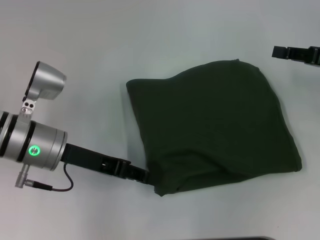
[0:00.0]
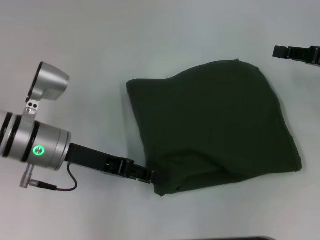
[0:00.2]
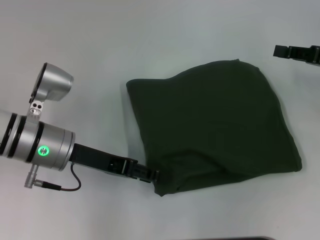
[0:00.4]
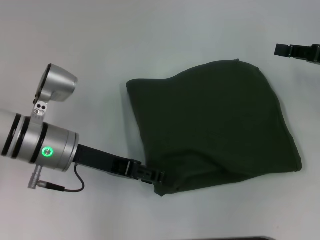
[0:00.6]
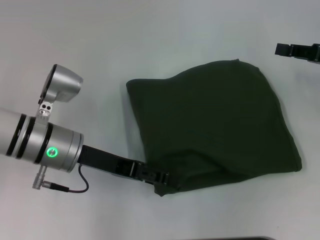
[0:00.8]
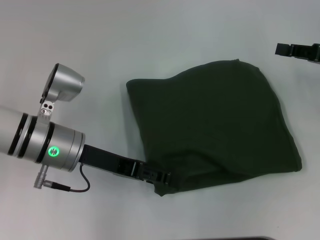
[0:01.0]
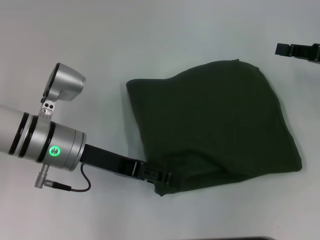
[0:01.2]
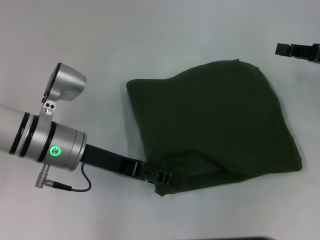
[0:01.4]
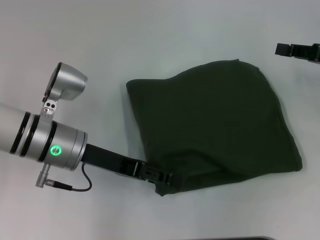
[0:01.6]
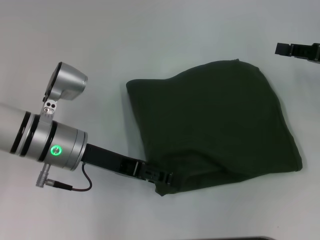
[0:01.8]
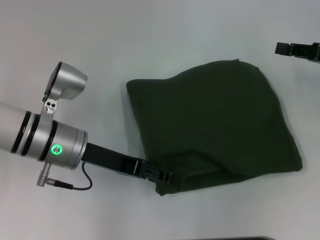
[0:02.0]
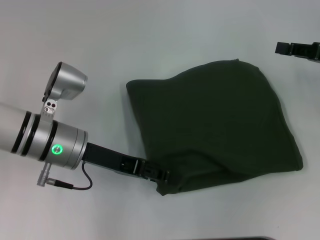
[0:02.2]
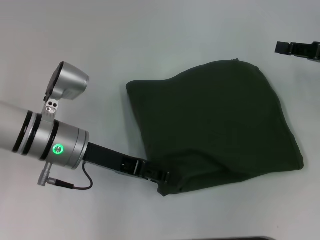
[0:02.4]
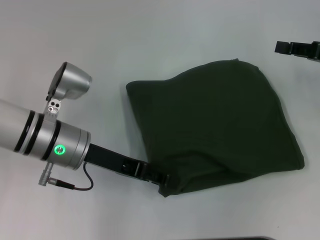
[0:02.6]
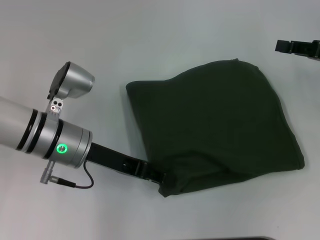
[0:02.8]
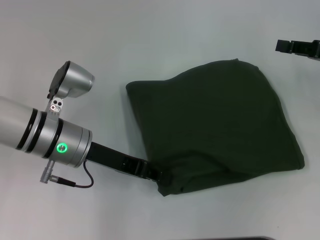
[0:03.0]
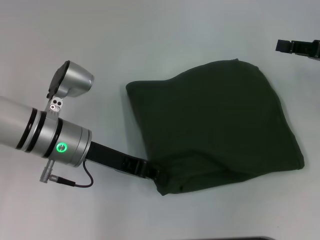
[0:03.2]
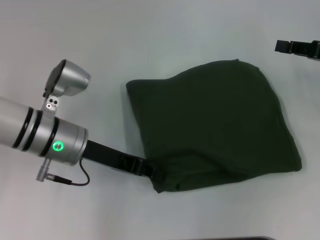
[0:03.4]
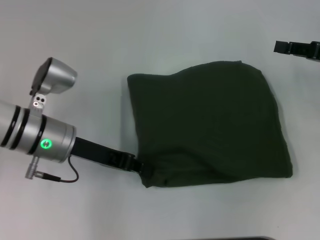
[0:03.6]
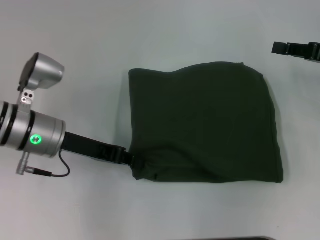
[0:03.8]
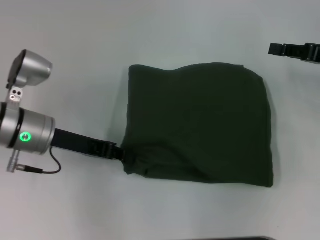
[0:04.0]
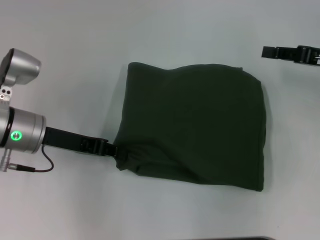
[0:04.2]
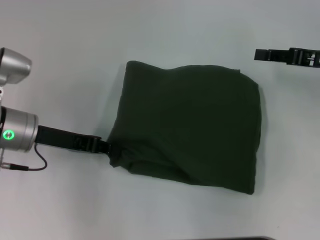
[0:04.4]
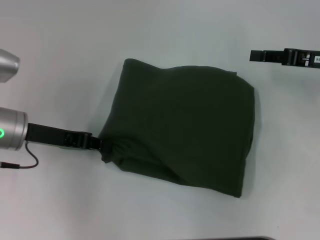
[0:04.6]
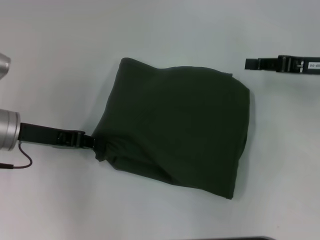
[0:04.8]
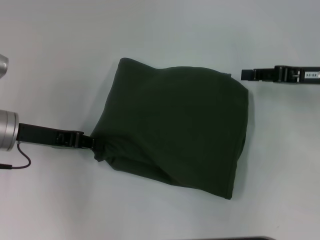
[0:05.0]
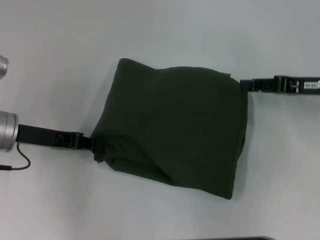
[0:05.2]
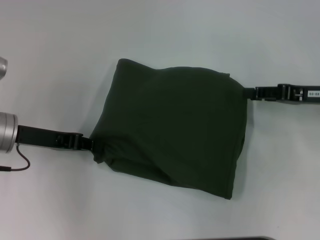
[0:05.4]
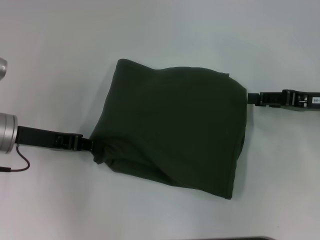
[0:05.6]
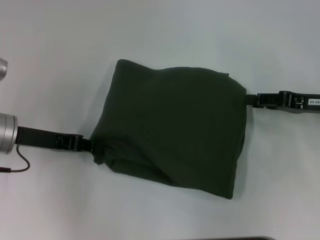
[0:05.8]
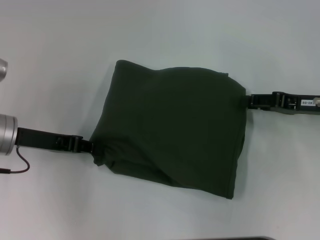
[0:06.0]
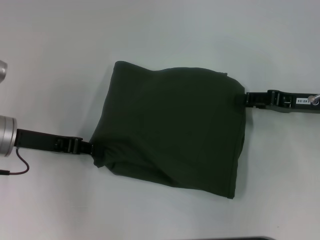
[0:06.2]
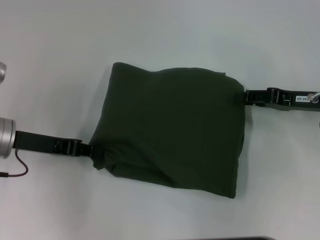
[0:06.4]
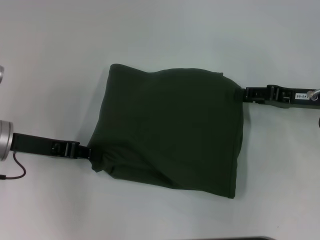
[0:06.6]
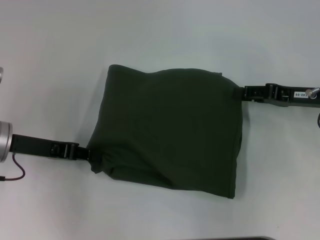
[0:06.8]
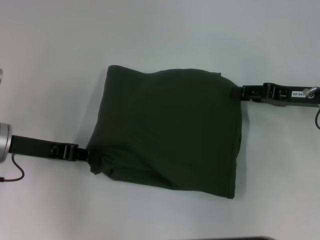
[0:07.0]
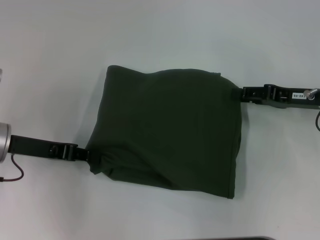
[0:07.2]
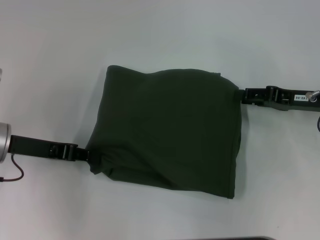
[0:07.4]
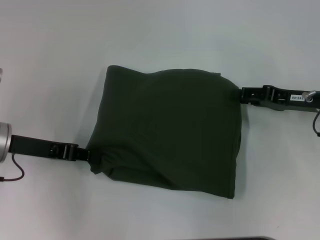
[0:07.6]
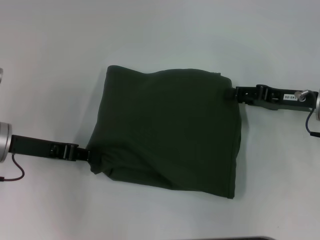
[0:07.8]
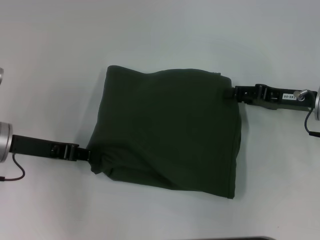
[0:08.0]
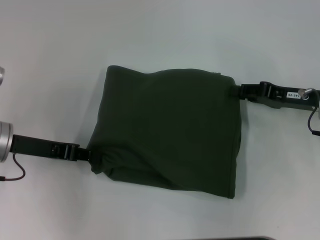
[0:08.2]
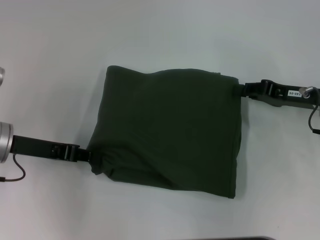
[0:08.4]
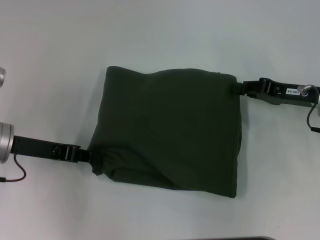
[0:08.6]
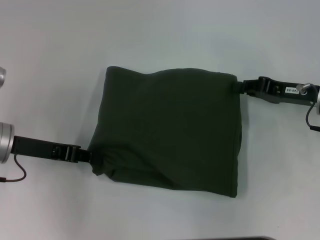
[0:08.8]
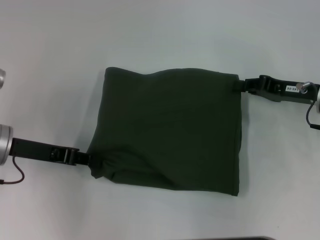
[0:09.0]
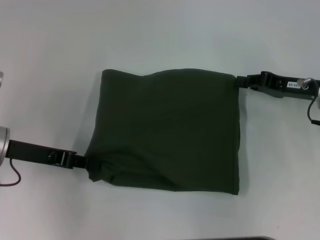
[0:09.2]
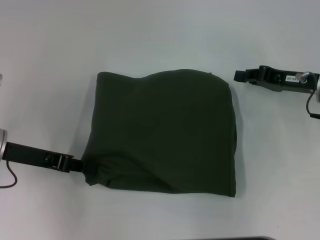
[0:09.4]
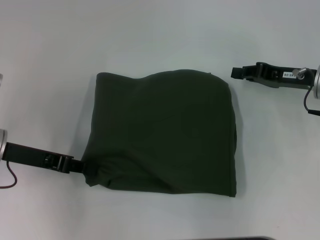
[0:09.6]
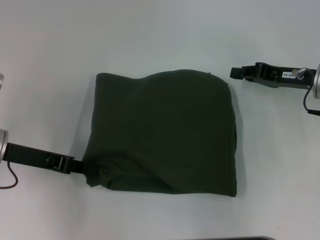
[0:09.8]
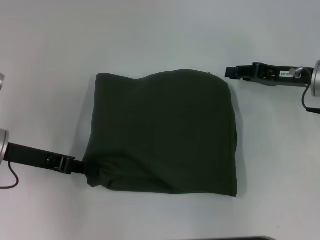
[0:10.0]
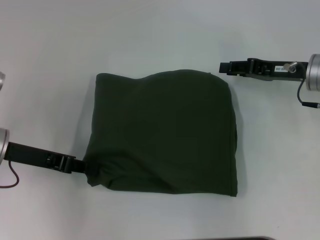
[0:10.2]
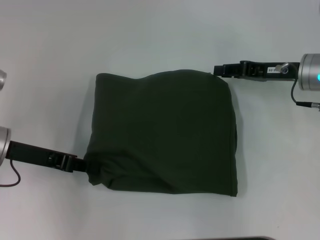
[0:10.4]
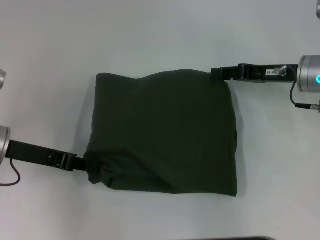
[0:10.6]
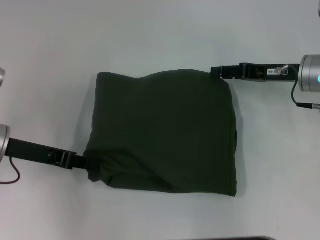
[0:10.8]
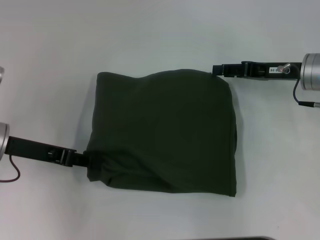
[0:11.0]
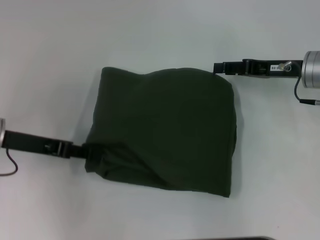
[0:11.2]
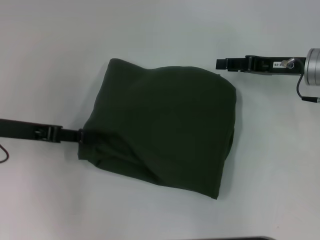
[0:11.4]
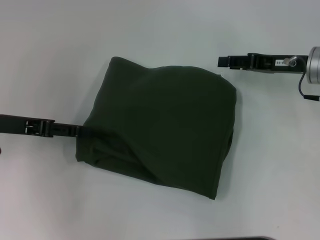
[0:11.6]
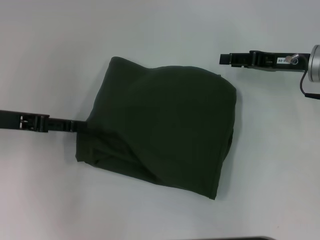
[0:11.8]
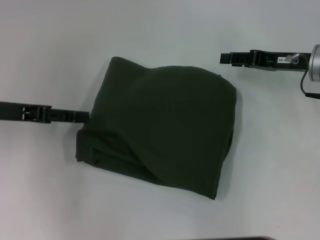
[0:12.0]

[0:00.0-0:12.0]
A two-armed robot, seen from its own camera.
0:00.0 to 0:01.6: The left gripper opens its fingers.
0:01.6 to 0:03.0: The left gripper closes its fingers.
0:03.0 to 0:04.4: The left gripper moves to the left, some 5 cm, and closes.
0:04.4 to 0:06.0: The right gripper shifts by roughly 5 cm.
0:06.0 to 0:07.6: The grippers make only small movements.
0:07.6 to 0:09.0: The right gripper closes.
0:09.0 to 0:10.4: The right gripper ends up about 5 cm from where it was.
0:10.4 to 0:12.0: The left gripper moves about 5 cm, and opens its fingers.

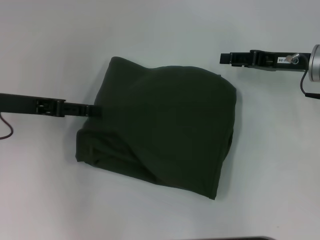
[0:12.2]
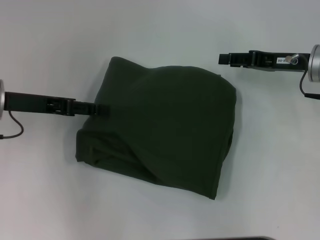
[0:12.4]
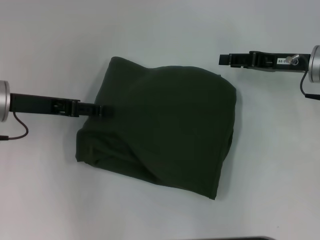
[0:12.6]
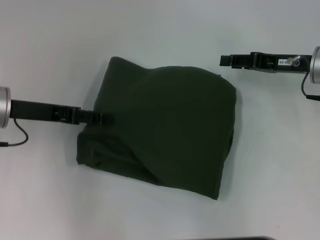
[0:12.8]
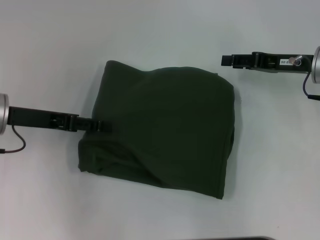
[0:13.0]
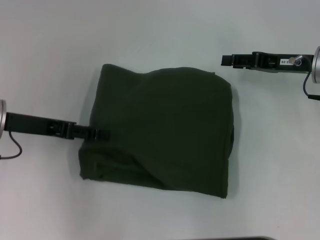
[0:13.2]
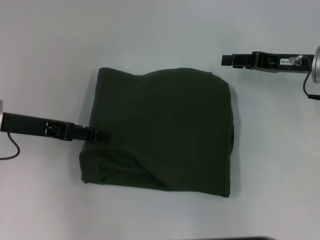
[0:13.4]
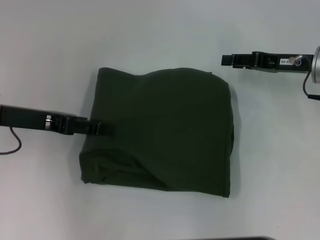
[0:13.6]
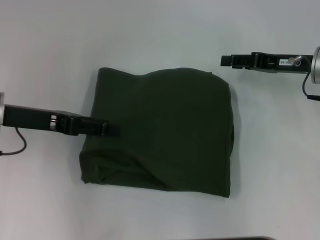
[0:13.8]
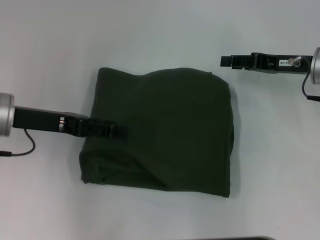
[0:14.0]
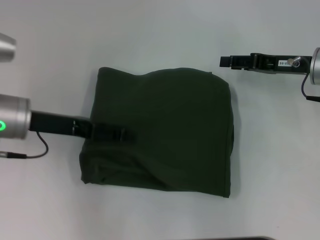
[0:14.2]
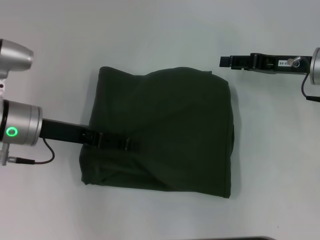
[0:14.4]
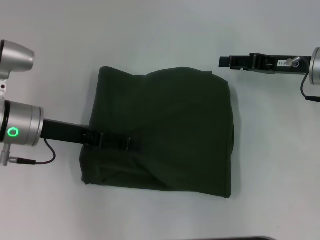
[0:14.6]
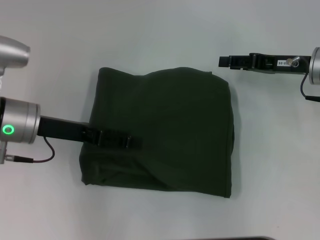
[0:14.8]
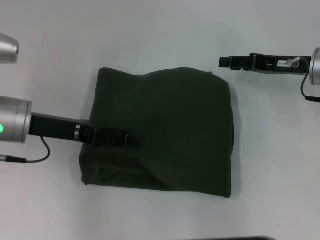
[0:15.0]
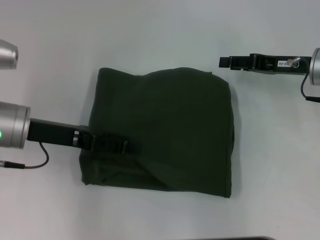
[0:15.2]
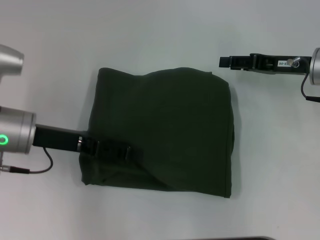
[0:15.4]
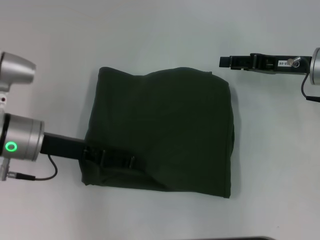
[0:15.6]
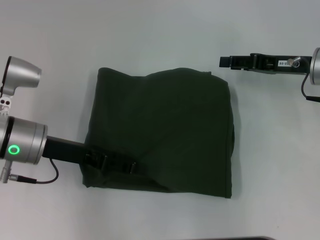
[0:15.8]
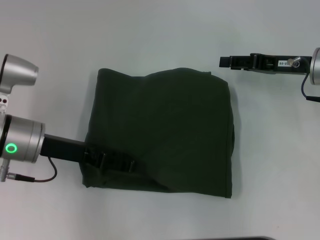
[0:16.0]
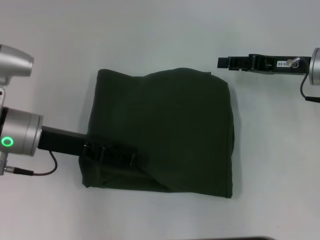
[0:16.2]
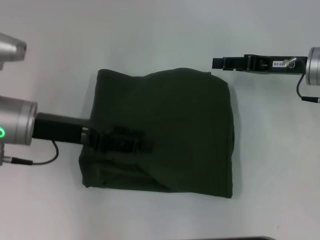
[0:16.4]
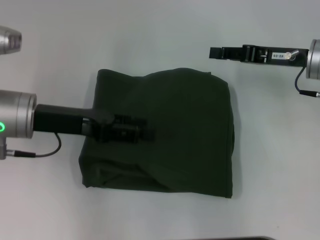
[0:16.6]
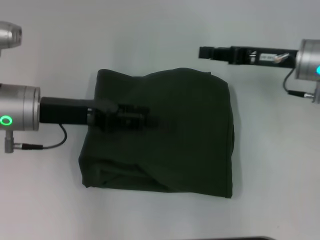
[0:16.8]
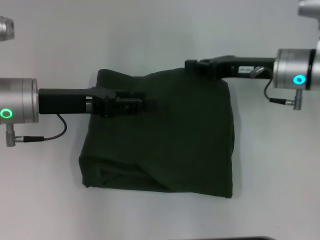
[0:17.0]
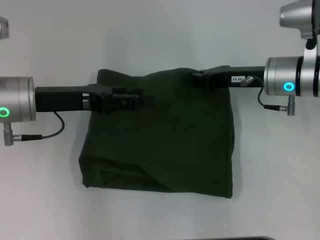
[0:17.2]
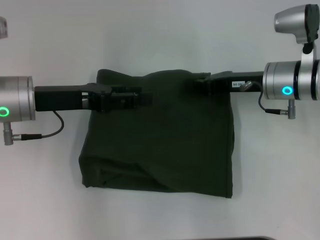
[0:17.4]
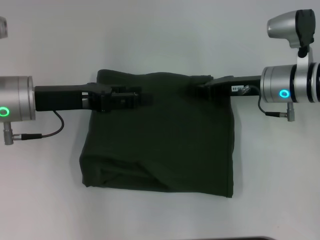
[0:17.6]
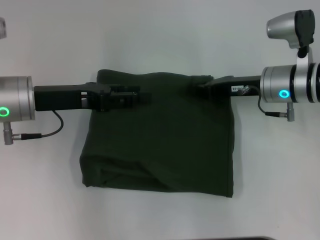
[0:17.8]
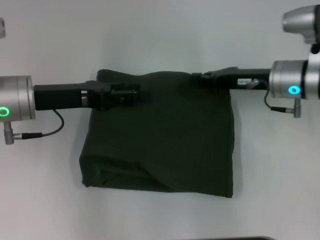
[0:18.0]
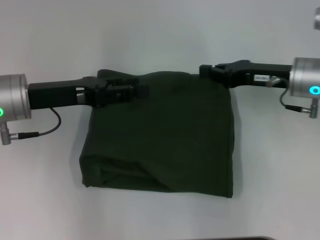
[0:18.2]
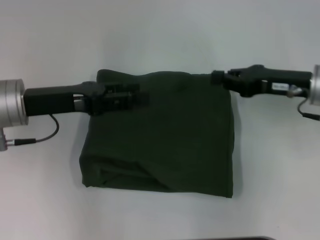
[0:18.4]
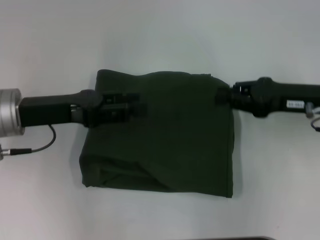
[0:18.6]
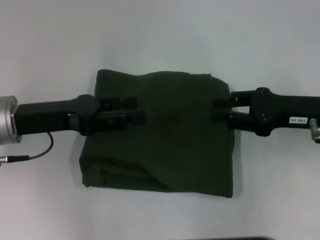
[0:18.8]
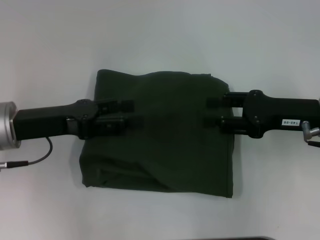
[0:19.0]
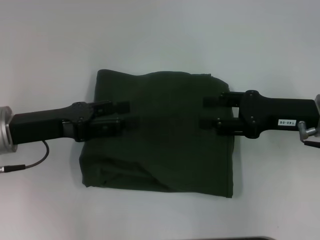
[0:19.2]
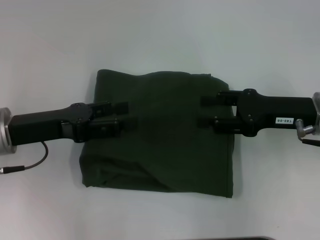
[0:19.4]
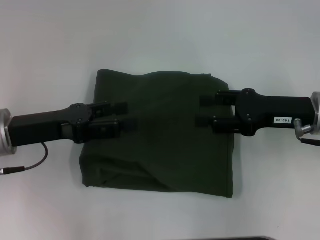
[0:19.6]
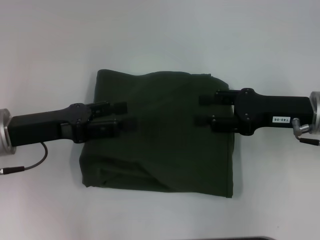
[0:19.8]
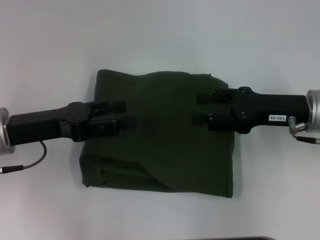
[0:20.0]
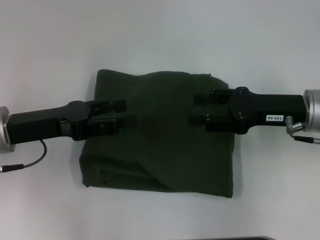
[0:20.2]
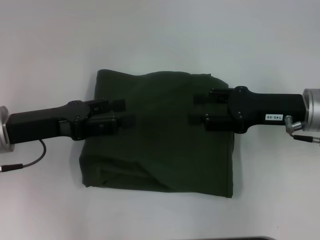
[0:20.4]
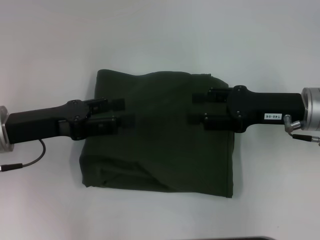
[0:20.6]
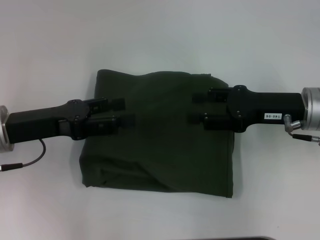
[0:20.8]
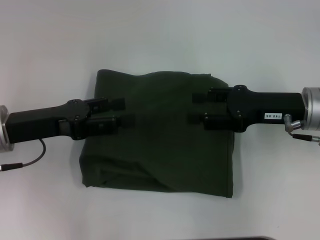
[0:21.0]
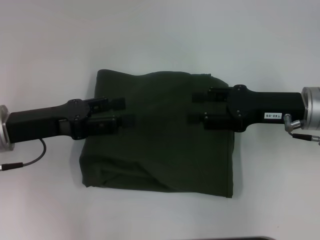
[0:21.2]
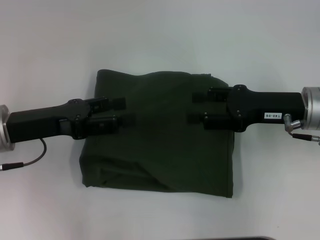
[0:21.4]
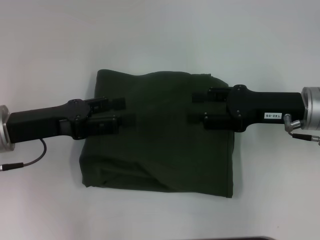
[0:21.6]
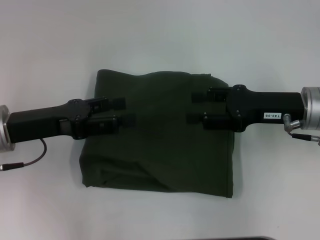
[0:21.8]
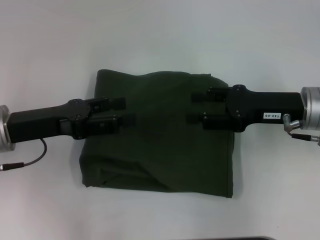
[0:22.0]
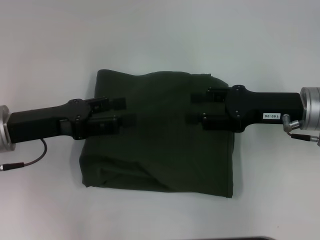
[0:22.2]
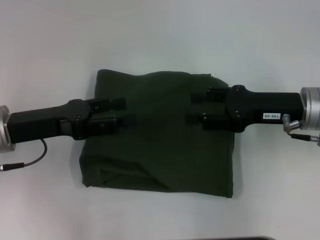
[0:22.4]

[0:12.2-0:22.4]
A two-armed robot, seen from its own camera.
0:12.2 to 0:13.6: There are only small adjustments of the grippers.
0:13.6 to 0:15.2: The grippers stay close to where they were, moving slightly.
0:15.2 to 0:16.6: The grippers move only a little.
0:16.6 to 0:18.0: The right gripper changes place by roughly 5 cm, and closes.
0:18.0 to 0:19.4: The right gripper is displaced backward by approximately 5 cm, and opens, while the left gripper ends up some 5 cm from where it was.
0:19.4 to 0:21.0: The grippers make only small movements.
0:21.0 to 0:22.4: Both grippers stay put.
